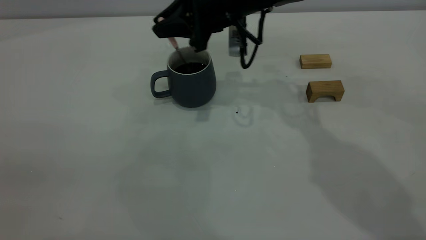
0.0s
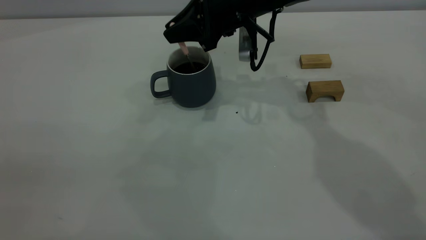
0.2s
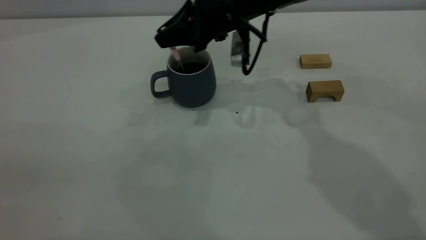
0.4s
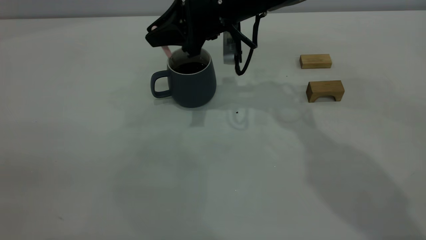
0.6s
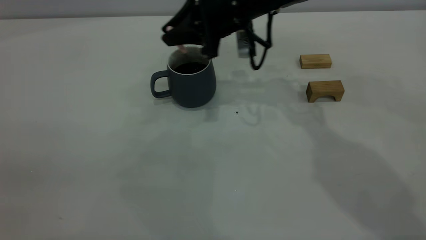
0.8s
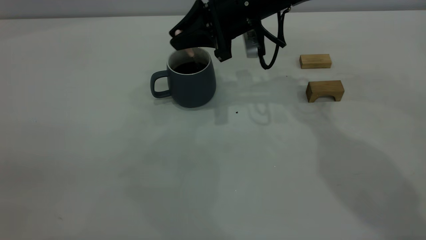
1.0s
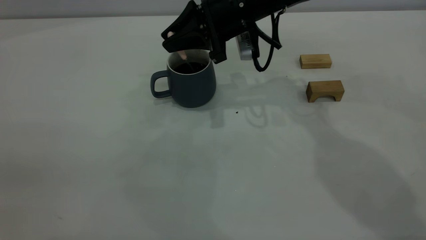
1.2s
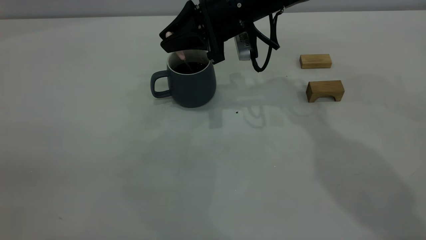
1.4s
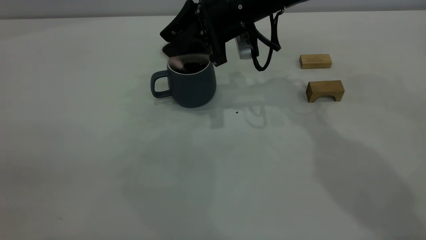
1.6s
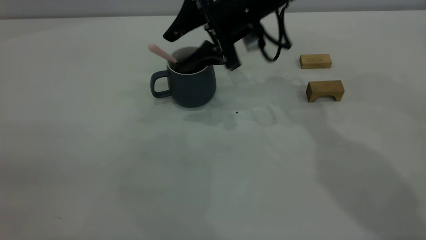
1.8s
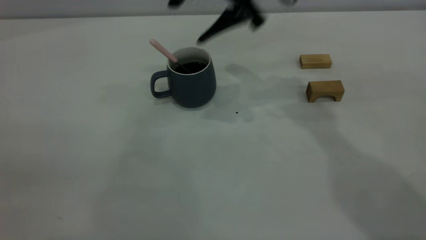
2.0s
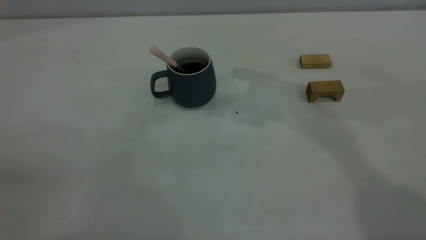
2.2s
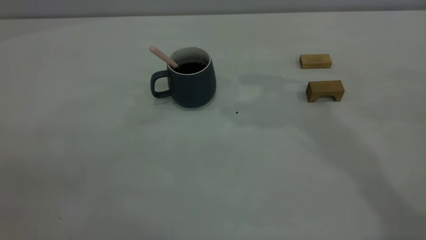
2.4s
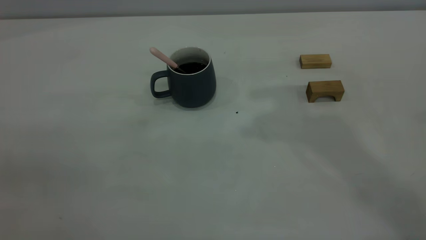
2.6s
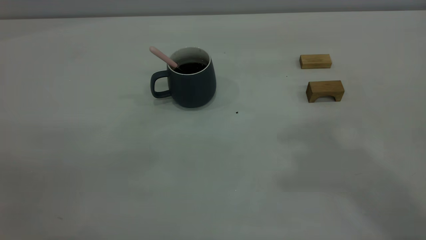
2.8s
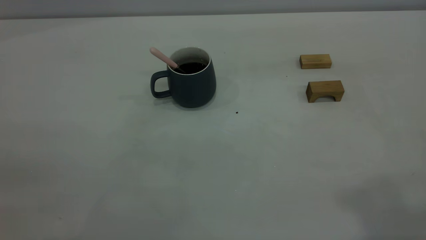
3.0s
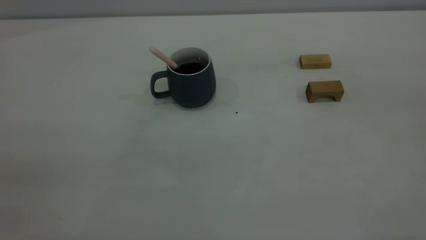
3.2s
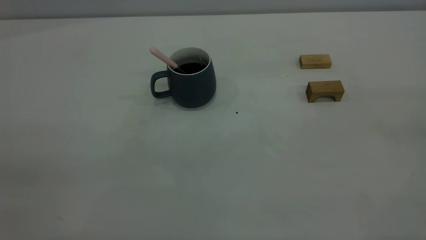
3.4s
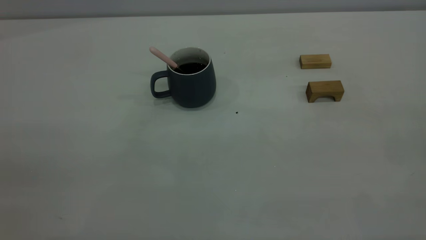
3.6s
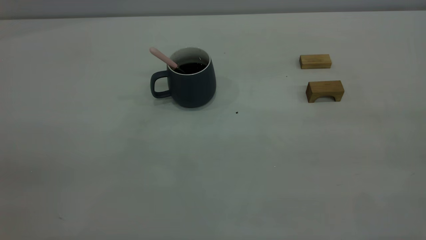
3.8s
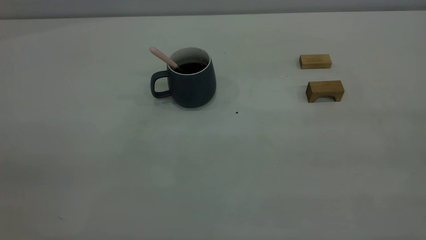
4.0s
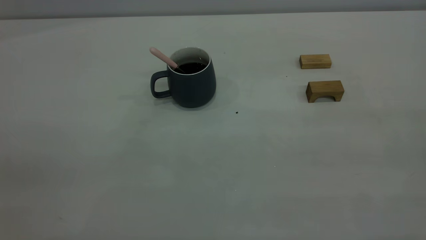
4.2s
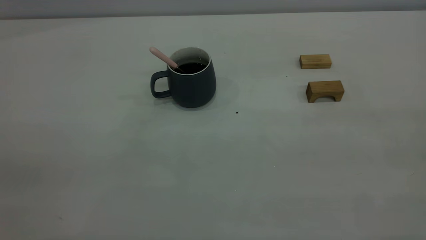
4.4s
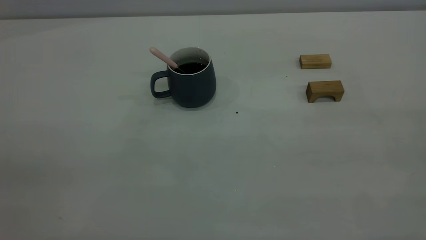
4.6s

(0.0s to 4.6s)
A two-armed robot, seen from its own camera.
0.0s - 1.6s: The right gripper opens.
1.6s - 3.0s: The right gripper goes some 50 cm upward, backward and to the right, and closes up.
